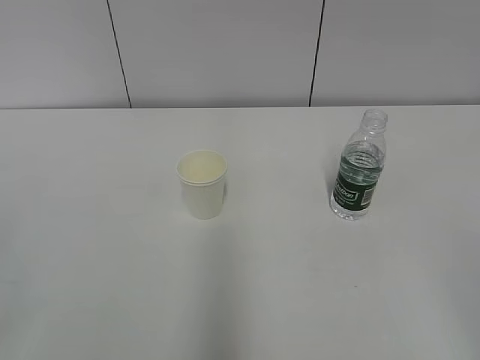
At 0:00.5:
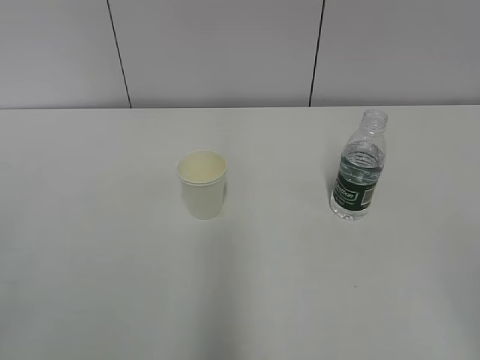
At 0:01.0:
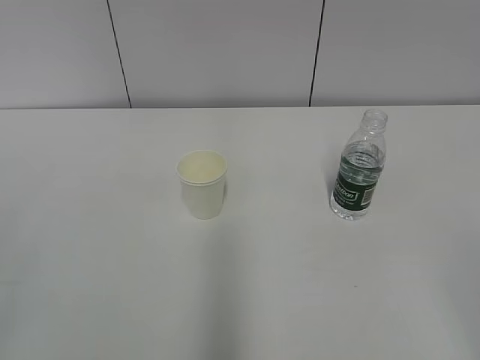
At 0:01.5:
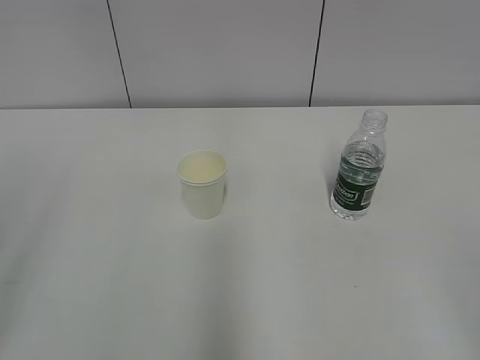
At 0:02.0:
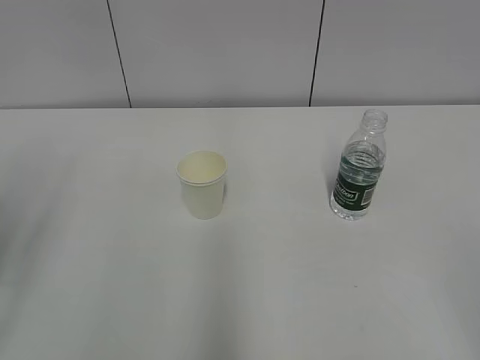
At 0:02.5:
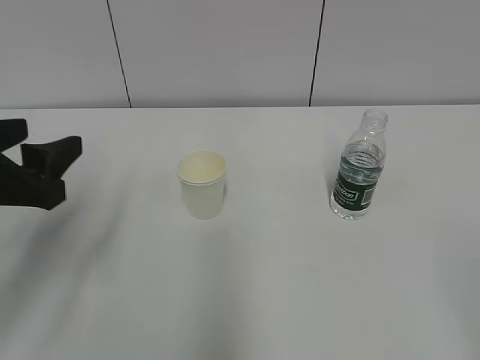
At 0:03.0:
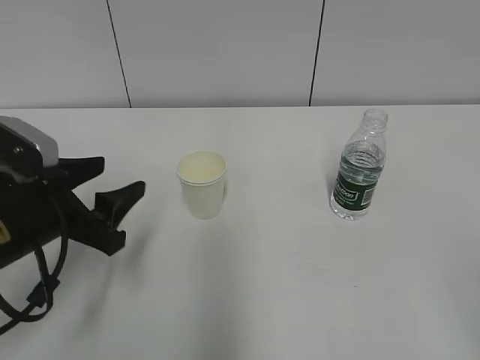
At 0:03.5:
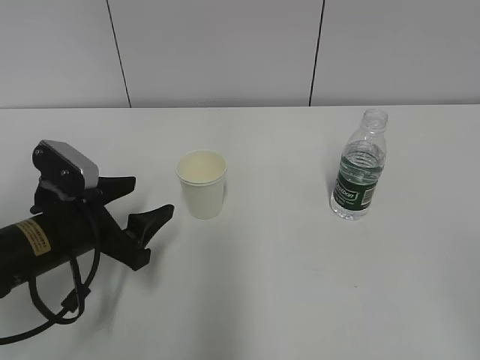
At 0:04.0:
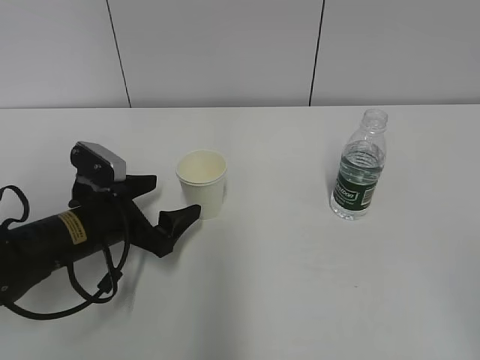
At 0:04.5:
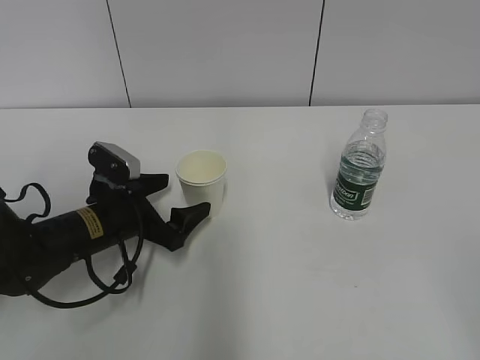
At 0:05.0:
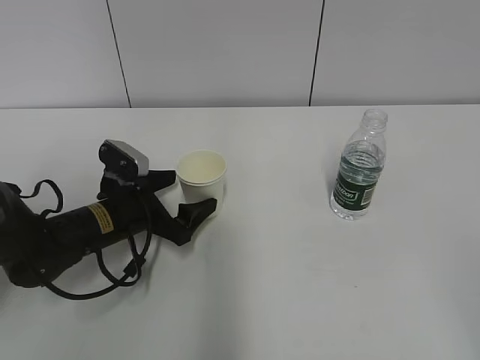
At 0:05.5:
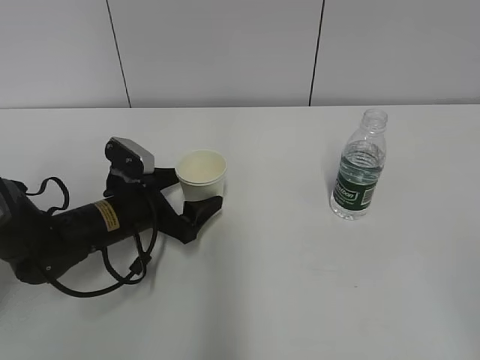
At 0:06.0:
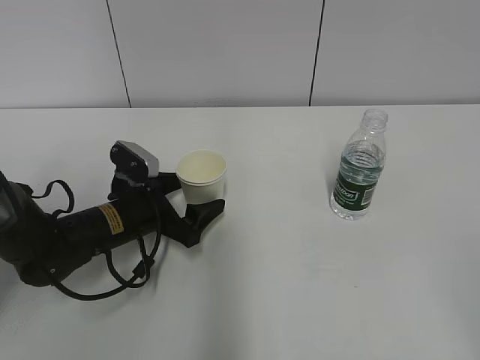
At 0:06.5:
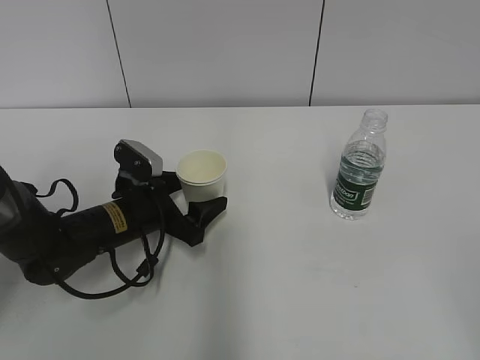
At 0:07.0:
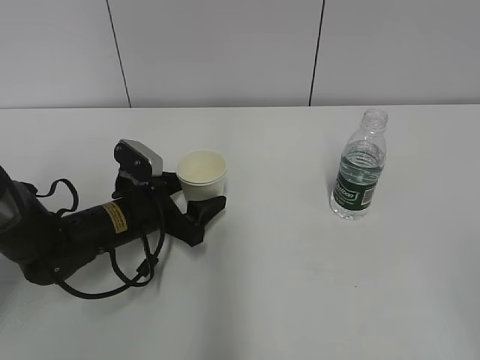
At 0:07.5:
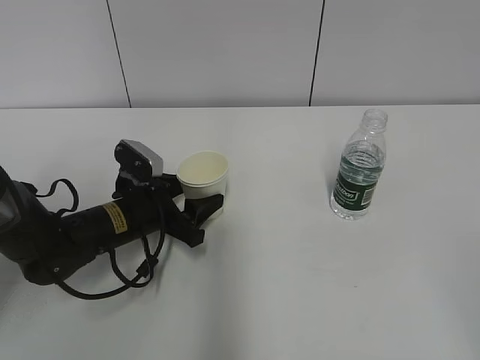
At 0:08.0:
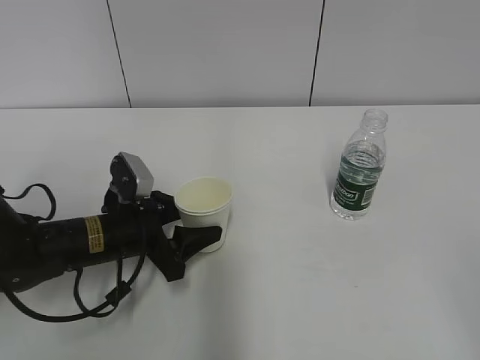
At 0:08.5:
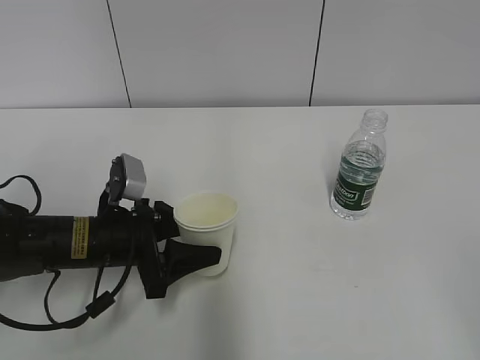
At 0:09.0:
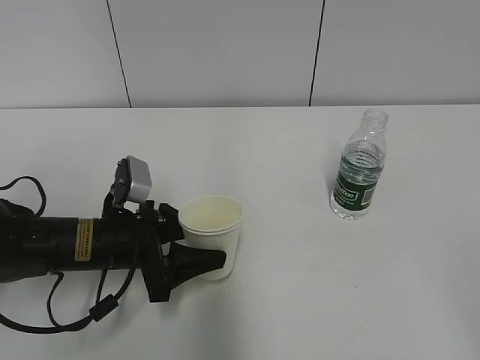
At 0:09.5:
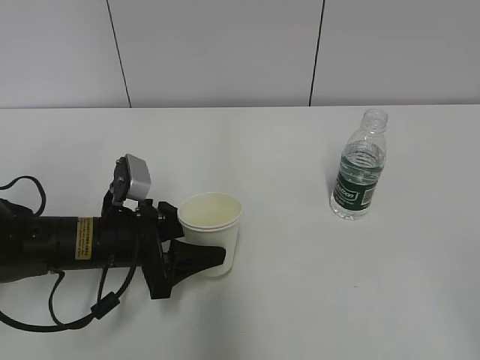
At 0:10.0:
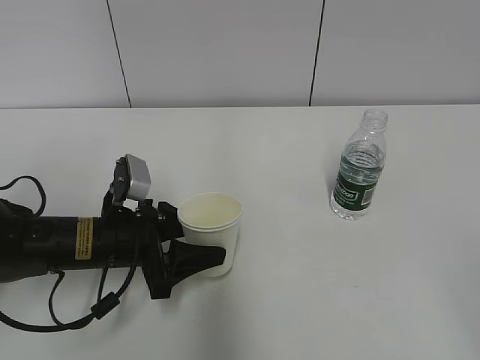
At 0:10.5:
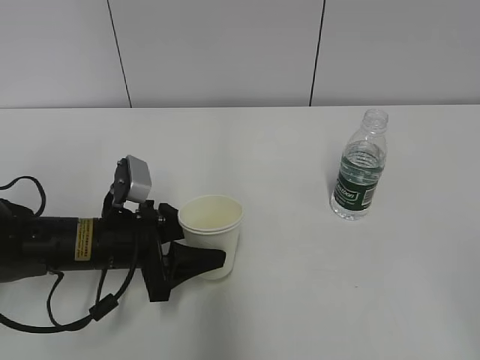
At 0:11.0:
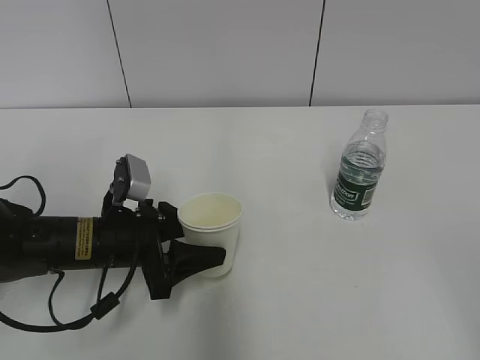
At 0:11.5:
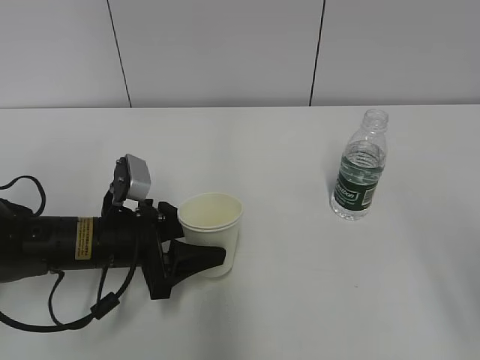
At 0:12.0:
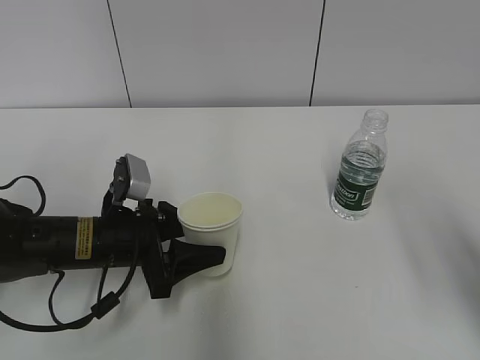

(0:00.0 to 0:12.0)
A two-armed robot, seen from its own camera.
Step, 0:00.0 - 0:06.0: Grab the paper cup with the left hand.
0:02.0 - 0:04.0: The left gripper travels downward, forward and to the right by approximately 30 cm, and opens up.
0:04.0 - 0:06.0: The left gripper ends up approximately 5 cm from where it was.
0:06.0 - 0:08.0: The left gripper closes its fingers.
0:08.0 - 0:10.0: The grippers stay close to where they were, moving slightly.
0:10.0 - 0:12.0: The right gripper goes some 15 cm forward.

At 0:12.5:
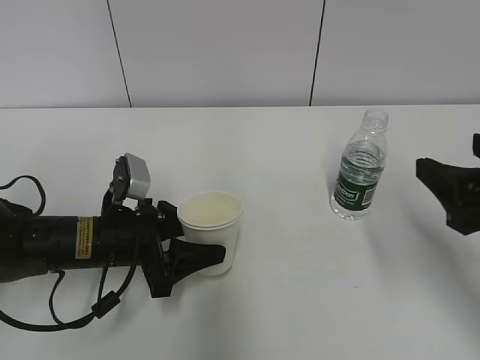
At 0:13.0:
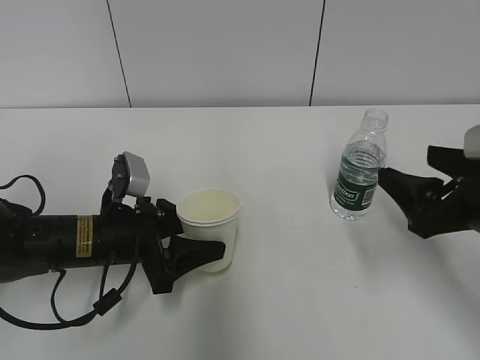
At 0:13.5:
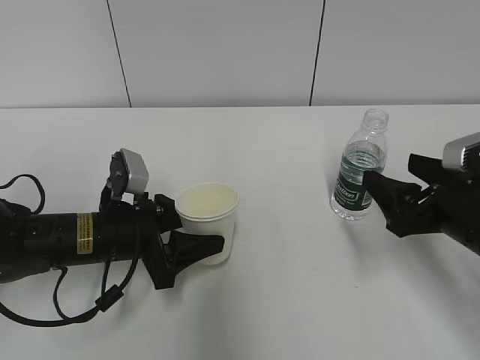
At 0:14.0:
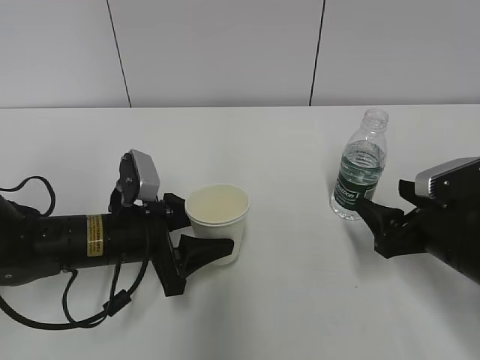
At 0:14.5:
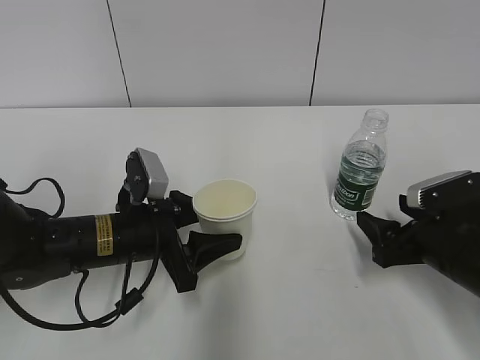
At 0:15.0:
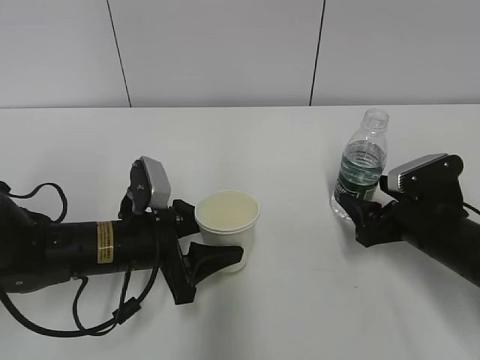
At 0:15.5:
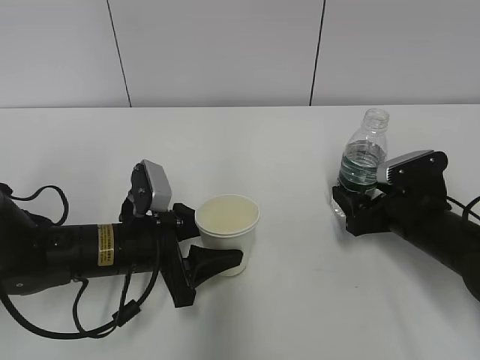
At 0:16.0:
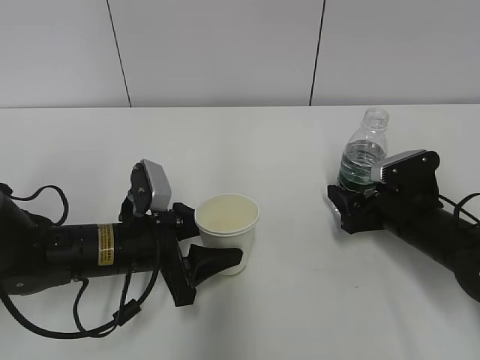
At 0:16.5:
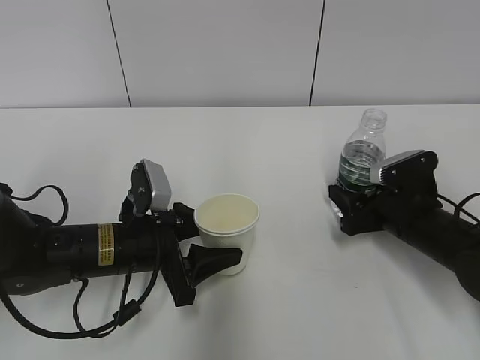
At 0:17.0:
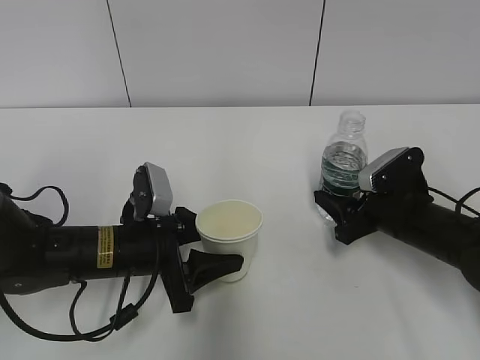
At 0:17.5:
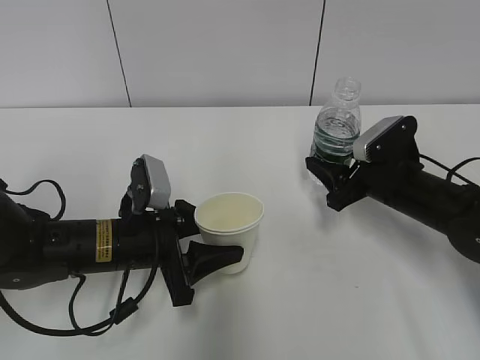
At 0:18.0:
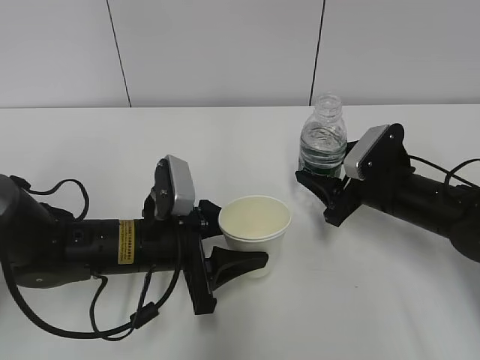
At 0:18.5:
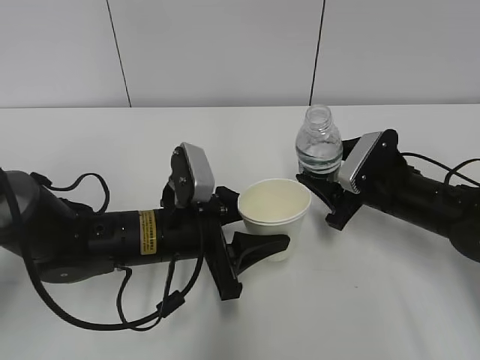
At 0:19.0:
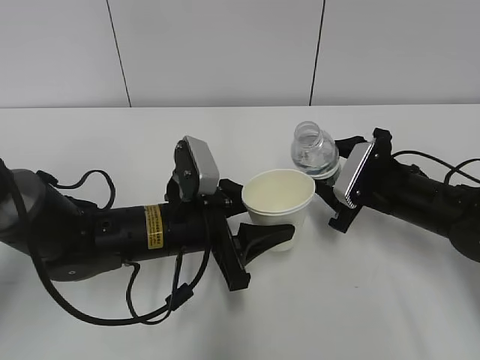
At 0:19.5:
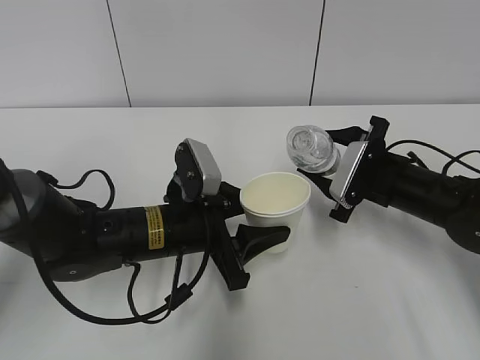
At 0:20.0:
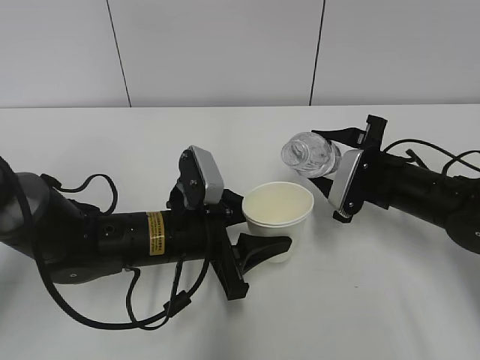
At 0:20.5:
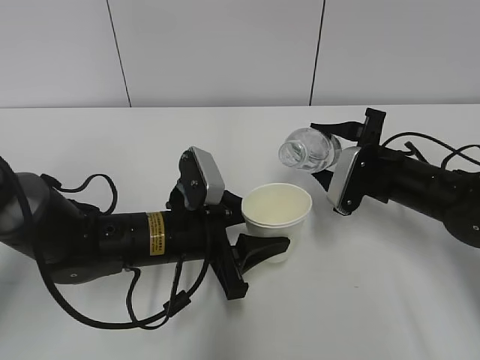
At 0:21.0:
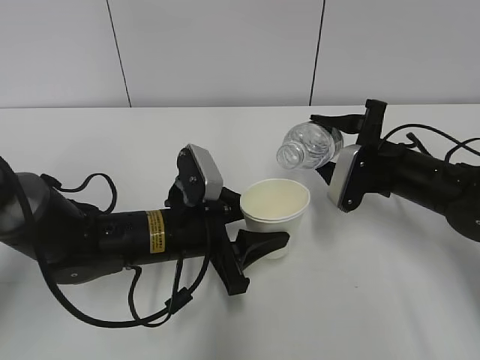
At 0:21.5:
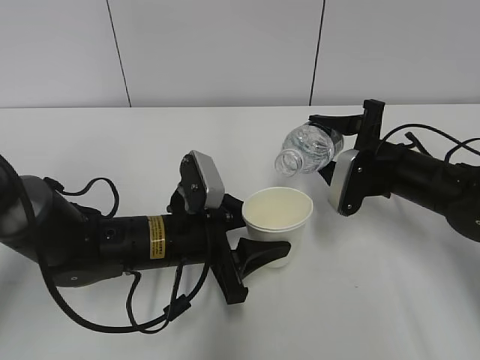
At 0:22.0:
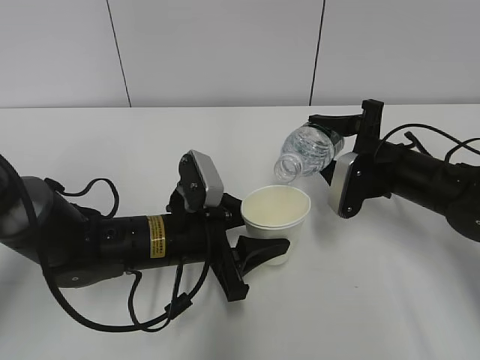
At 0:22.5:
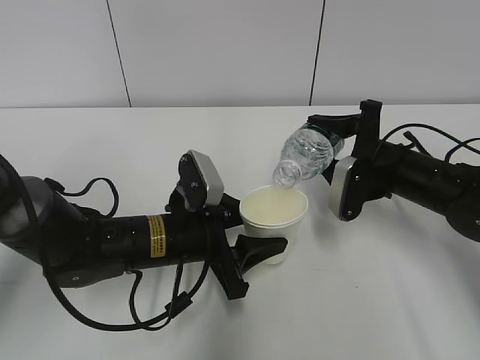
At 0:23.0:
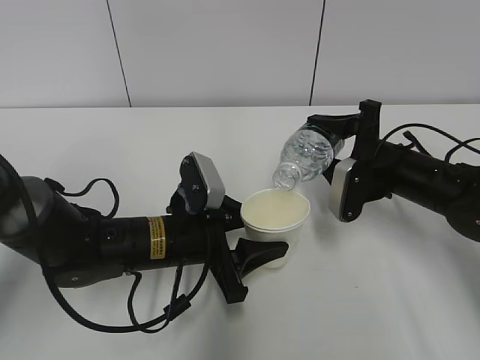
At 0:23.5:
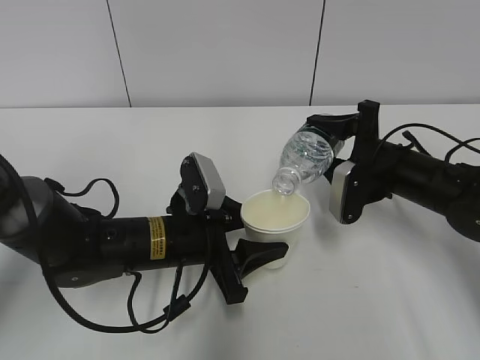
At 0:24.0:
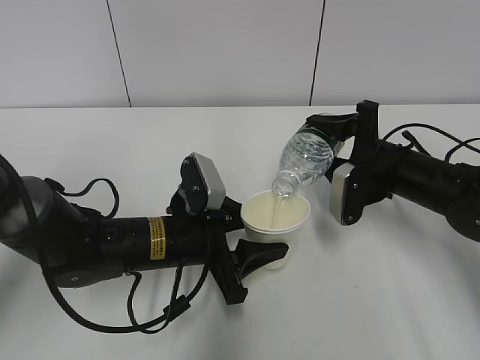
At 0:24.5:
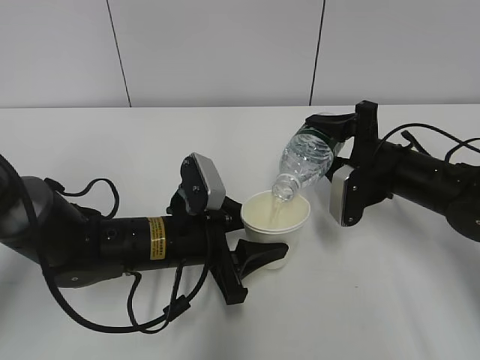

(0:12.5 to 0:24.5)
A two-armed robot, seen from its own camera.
Step, 0:14.0 - 0:19.5: Lift the paper cup with the left hand.
Step, 0:20.0 - 0:23.5: Fill water with the left hand.
Step, 0:20.0 - 0:23.5: Pour water with the right hand.
0:12.5 - 0:14.5: The right gripper goes about 15 cm downward and forward.
0:14.5 - 0:16.5: The right gripper moves forward, roughly 5 cm, and closes its fingers.
0:16.5 - 0:18.5: The left gripper heads to the right, covering some 5 cm.
0:20.5 - 0:22.5: The grippers move only a little.
0:22.5 - 0:24.5: There are only small adjustments of the grippers.

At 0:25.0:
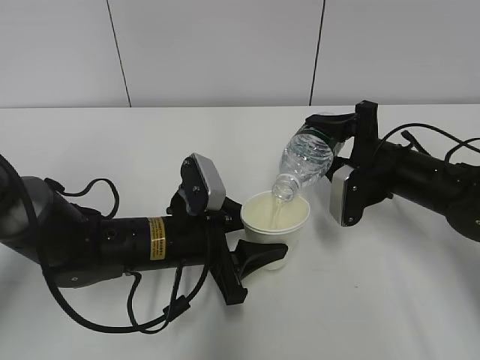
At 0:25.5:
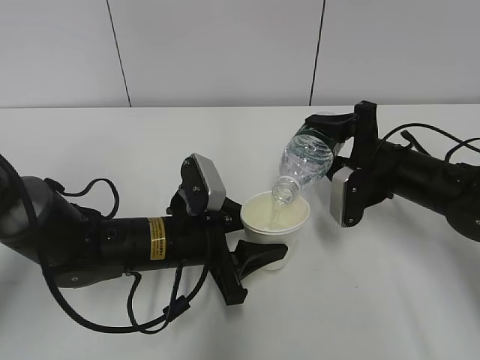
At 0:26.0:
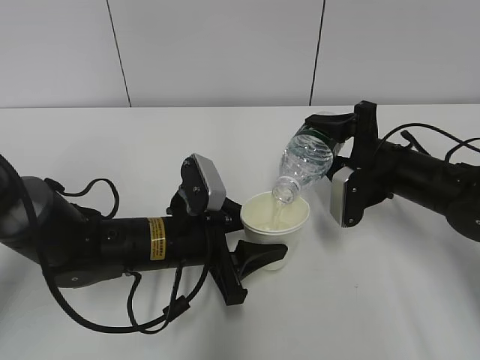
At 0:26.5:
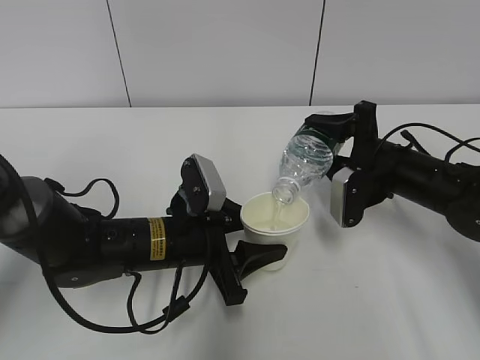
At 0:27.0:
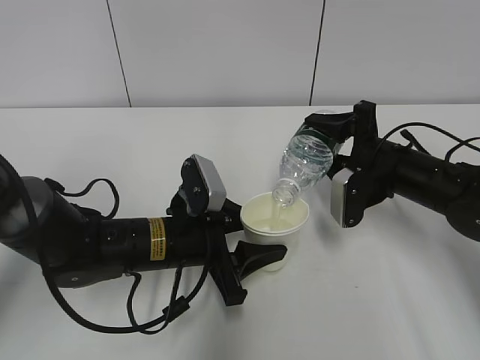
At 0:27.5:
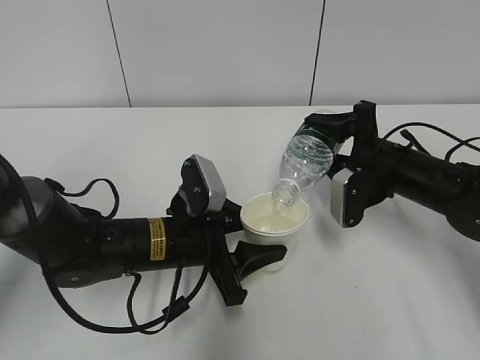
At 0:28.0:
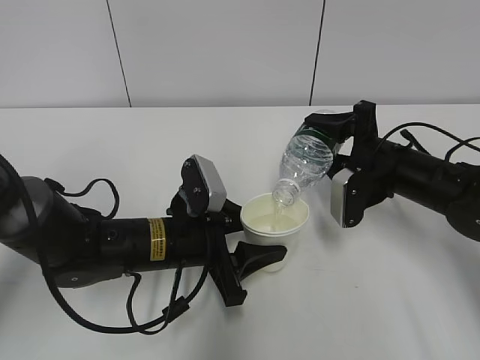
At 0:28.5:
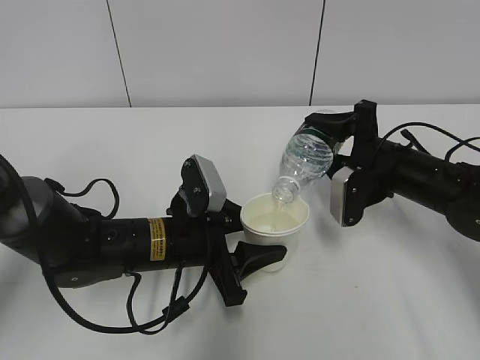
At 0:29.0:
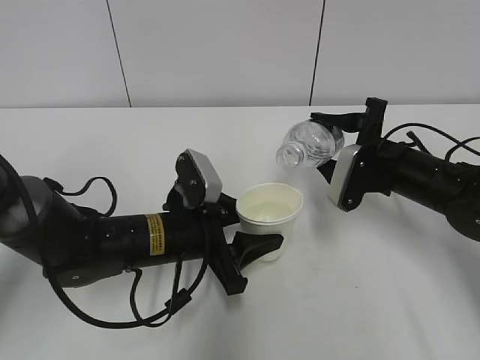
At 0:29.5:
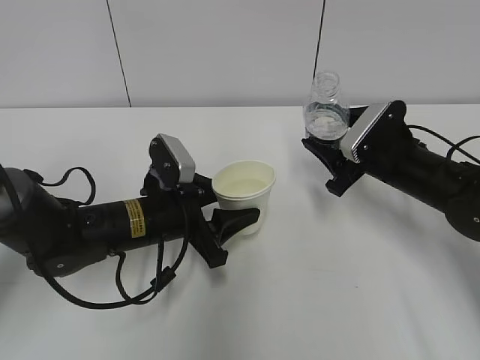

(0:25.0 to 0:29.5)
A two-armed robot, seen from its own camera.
0:25.0 - 0:27.0: Both grippers stay put.
